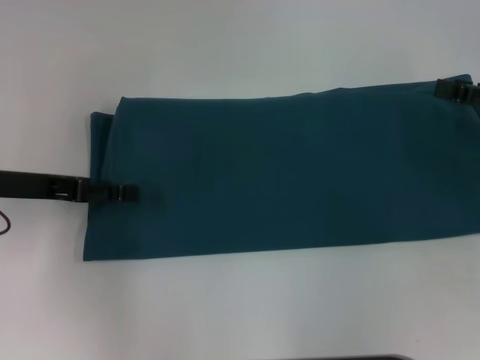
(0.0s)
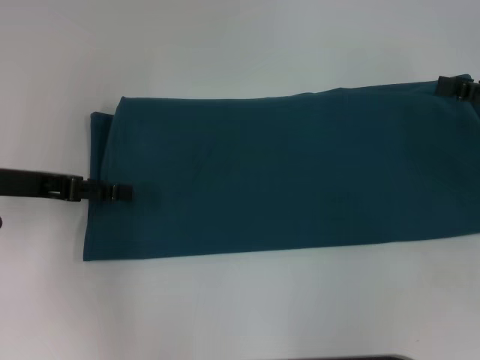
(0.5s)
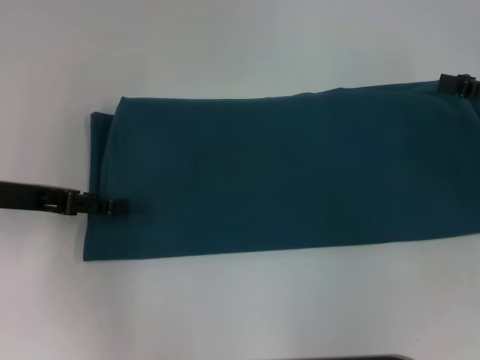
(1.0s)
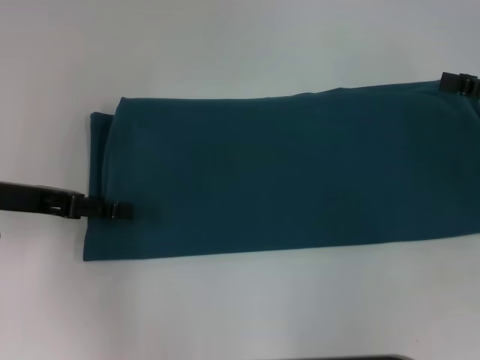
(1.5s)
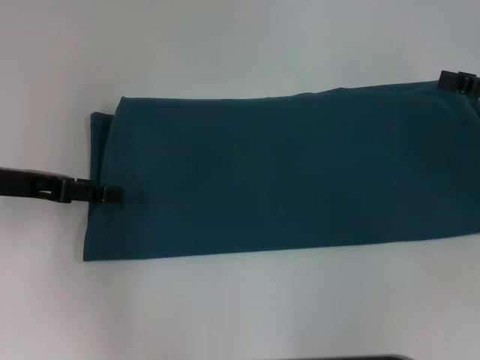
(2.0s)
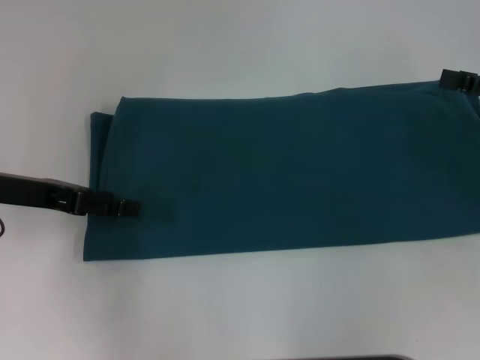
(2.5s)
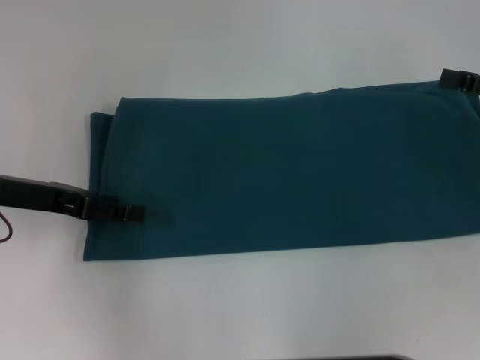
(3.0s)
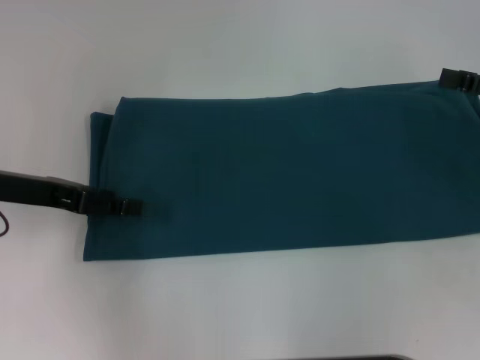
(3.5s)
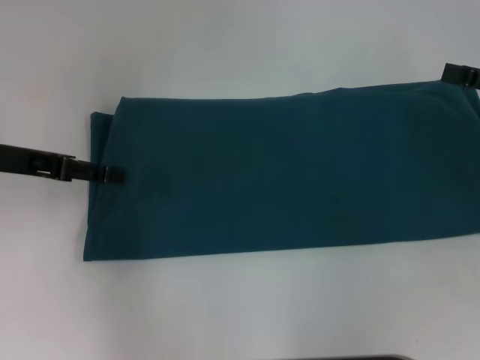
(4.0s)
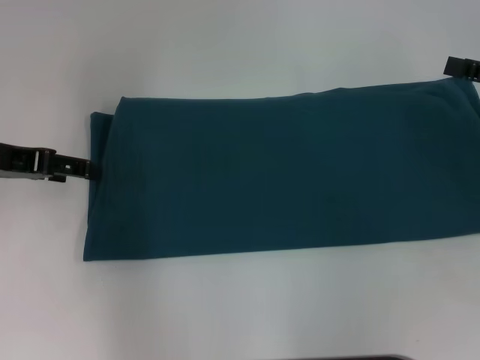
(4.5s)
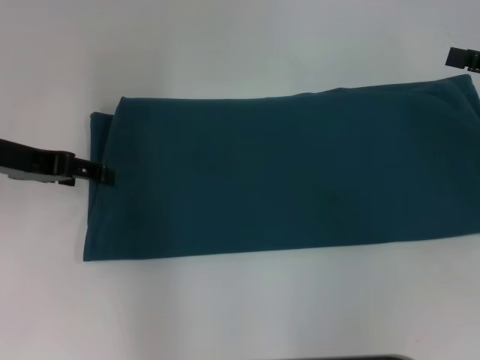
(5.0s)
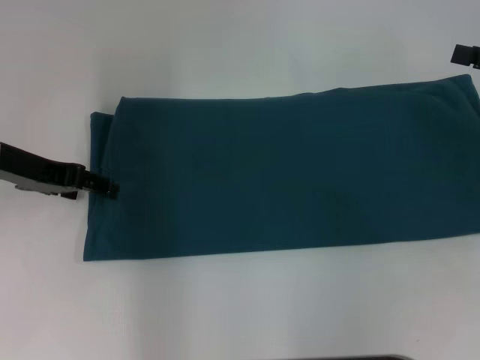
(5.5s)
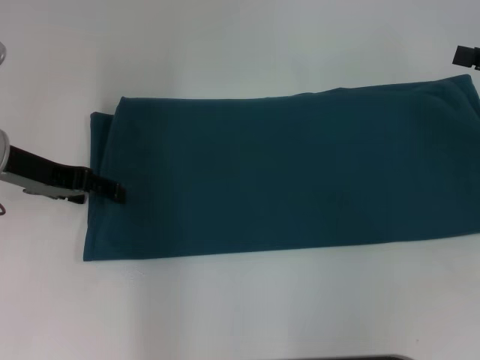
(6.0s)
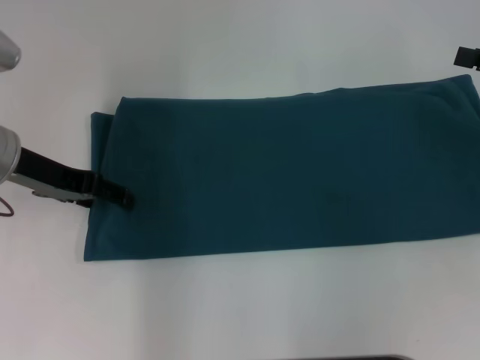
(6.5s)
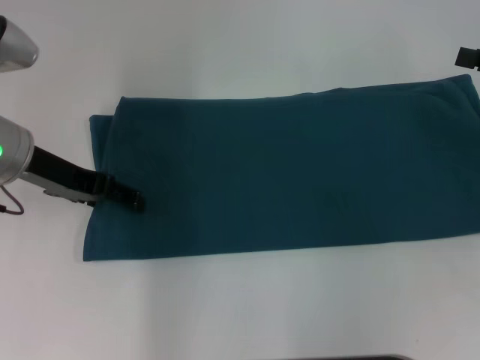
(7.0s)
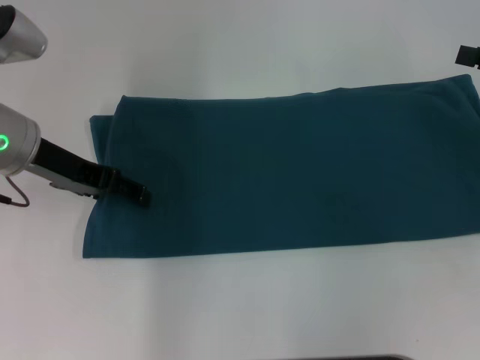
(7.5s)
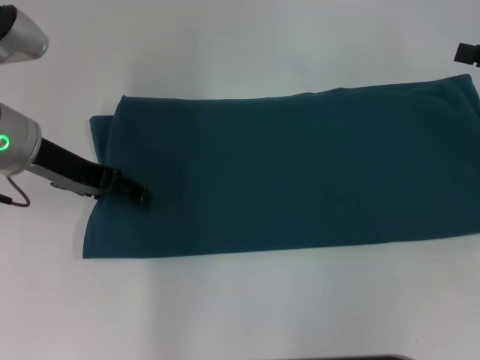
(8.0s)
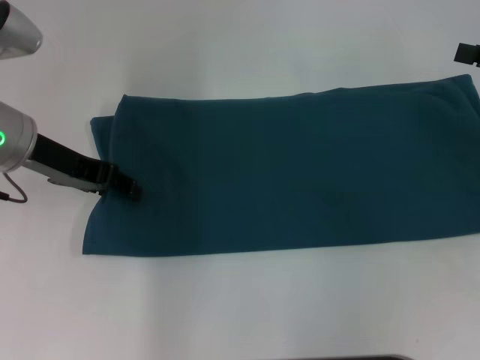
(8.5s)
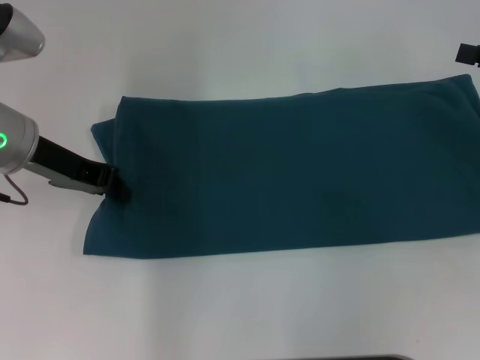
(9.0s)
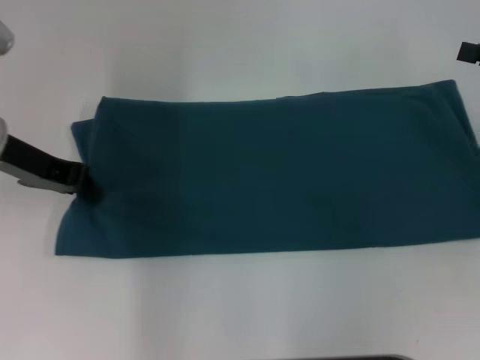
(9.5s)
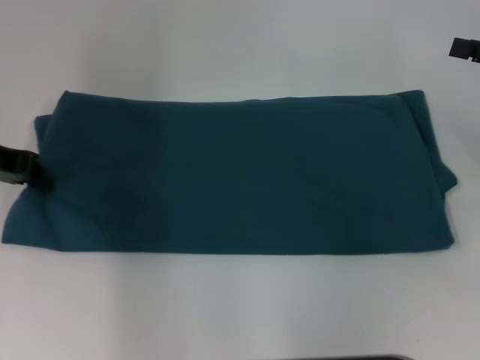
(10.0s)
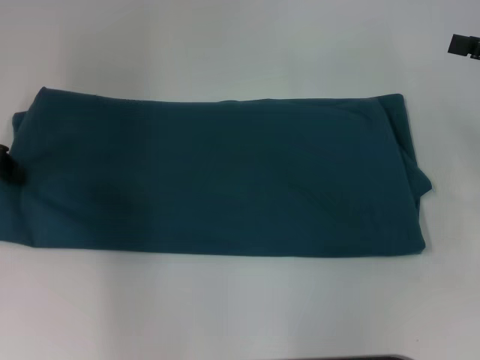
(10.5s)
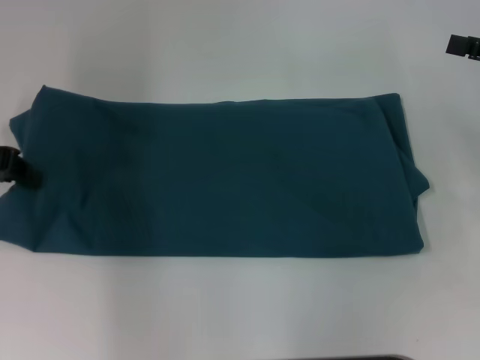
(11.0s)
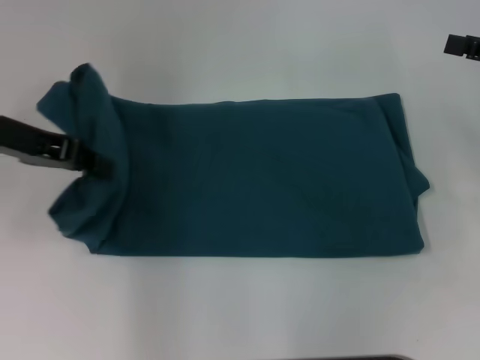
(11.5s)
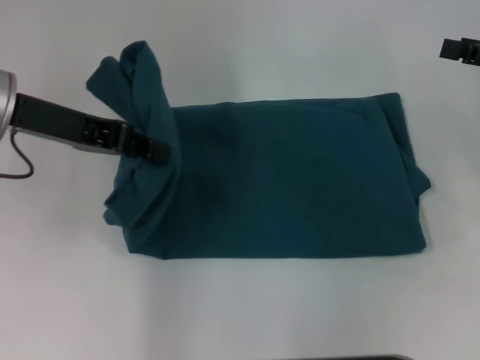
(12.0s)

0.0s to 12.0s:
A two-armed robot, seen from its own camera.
0.0s to 2.0s: The two grippers keep their place.
2.0s to 4.0s: The grippers stay close to where they were, moving slightly.
6.0s to 8.0s: The grippers make only small movements.
8.0s to 10.0s: The left gripper is displaced to the left by some 5 cm, and closes its fingers.
10.0s to 12.0s: The left gripper is displaced to the right by about 5 cm.

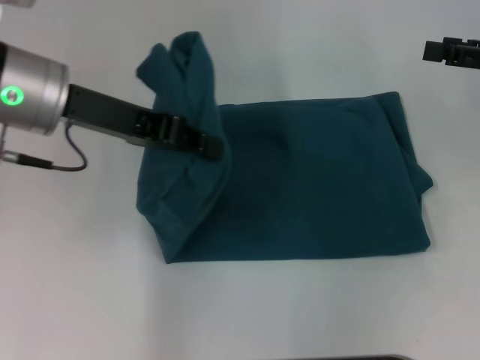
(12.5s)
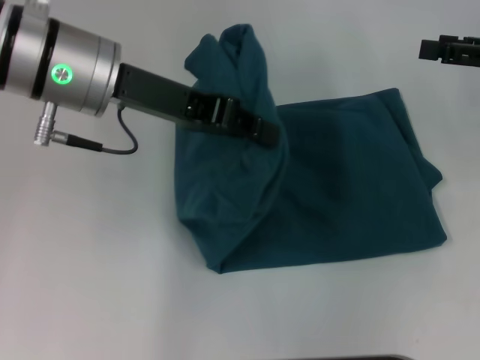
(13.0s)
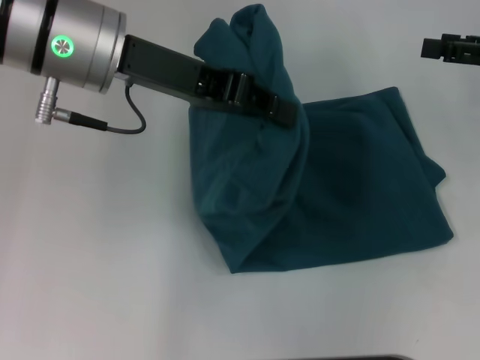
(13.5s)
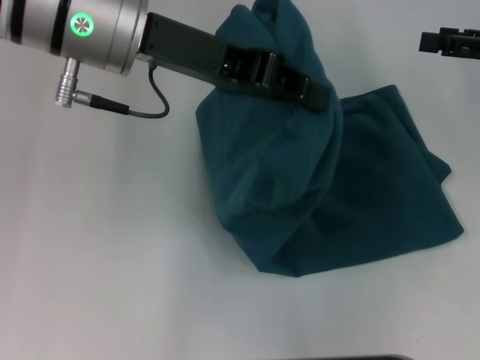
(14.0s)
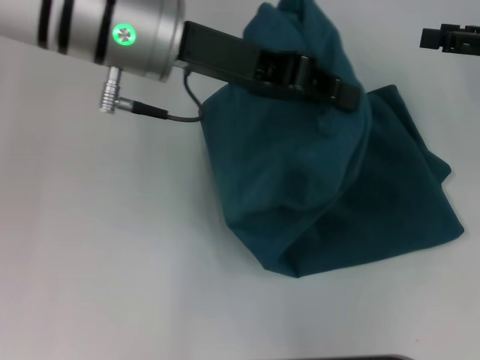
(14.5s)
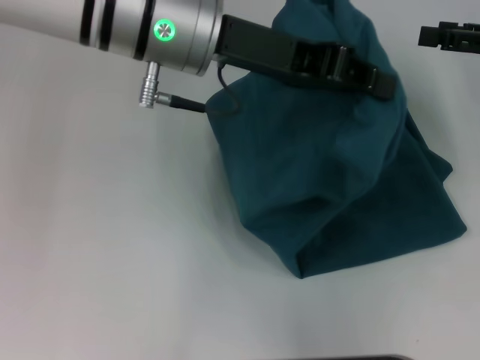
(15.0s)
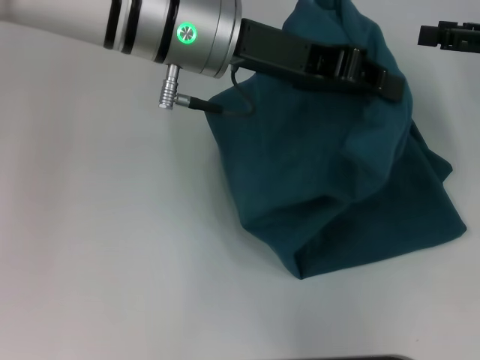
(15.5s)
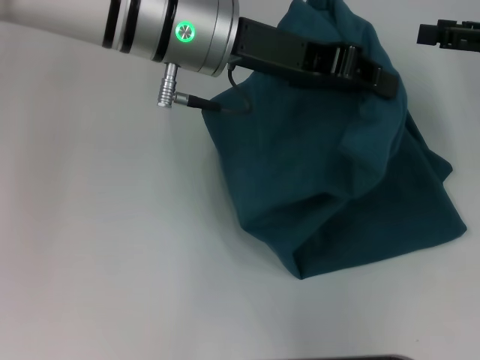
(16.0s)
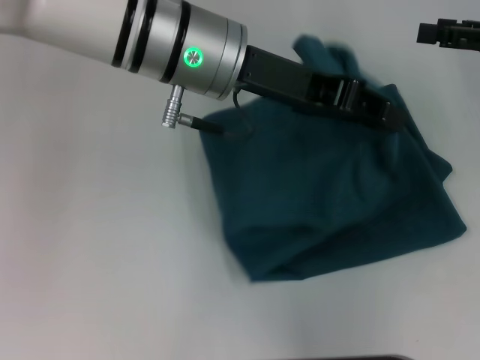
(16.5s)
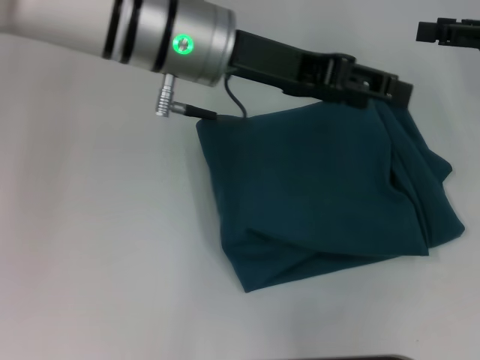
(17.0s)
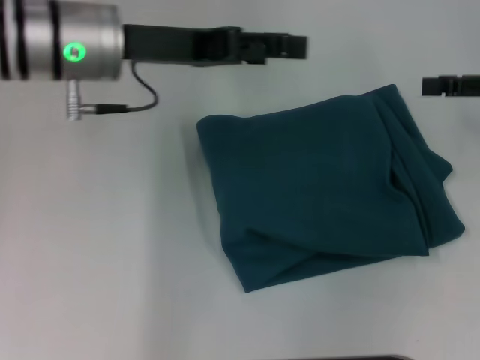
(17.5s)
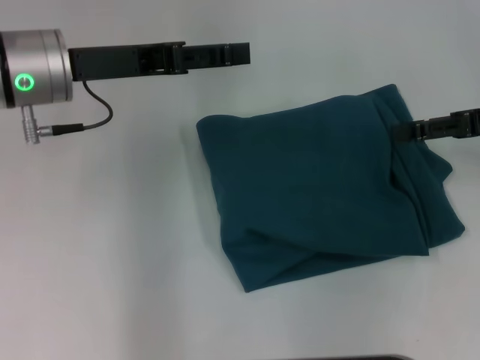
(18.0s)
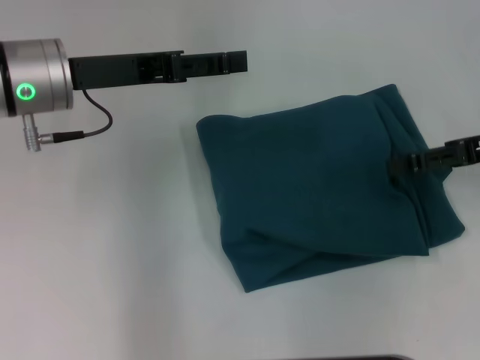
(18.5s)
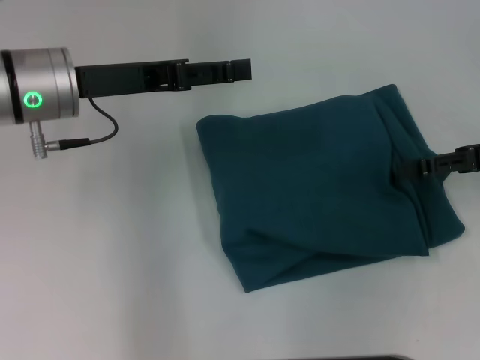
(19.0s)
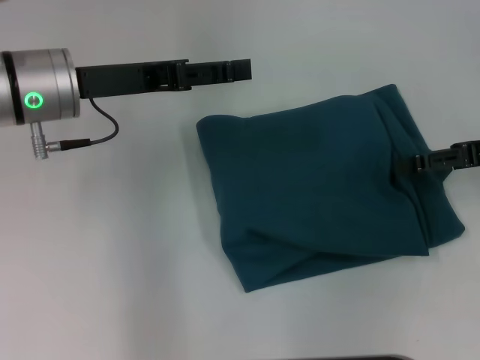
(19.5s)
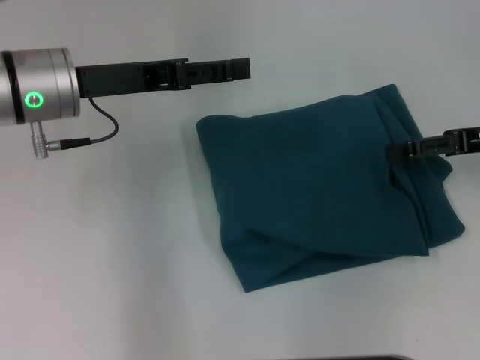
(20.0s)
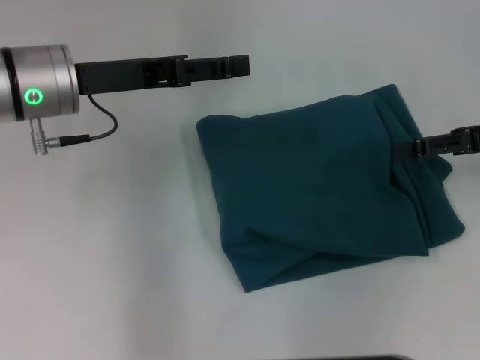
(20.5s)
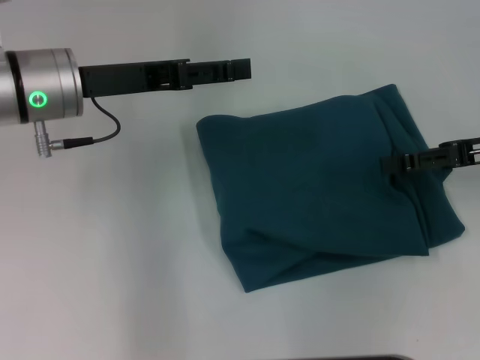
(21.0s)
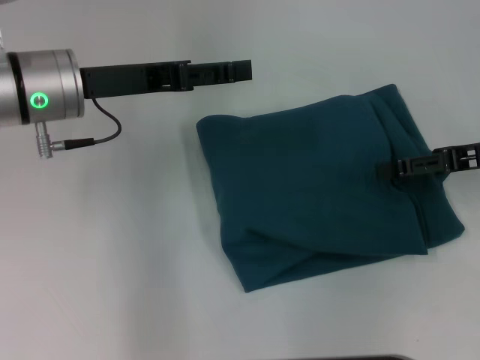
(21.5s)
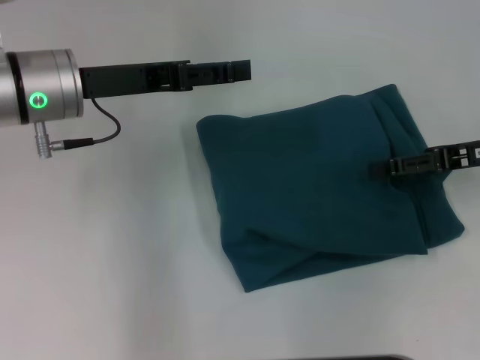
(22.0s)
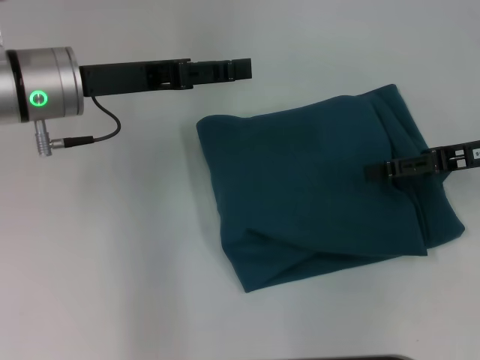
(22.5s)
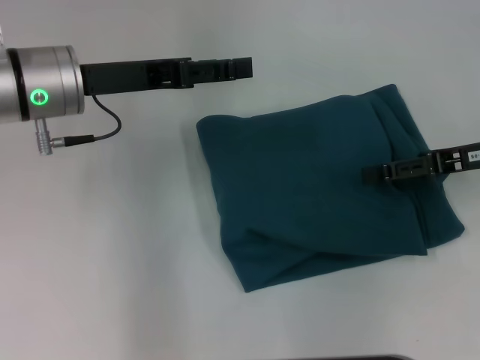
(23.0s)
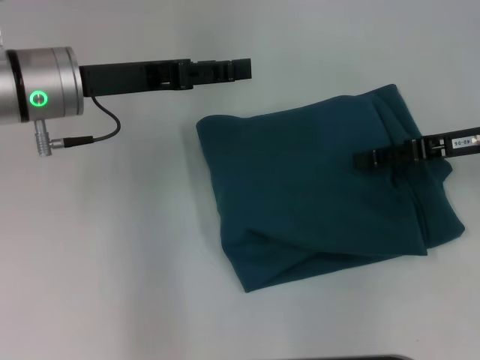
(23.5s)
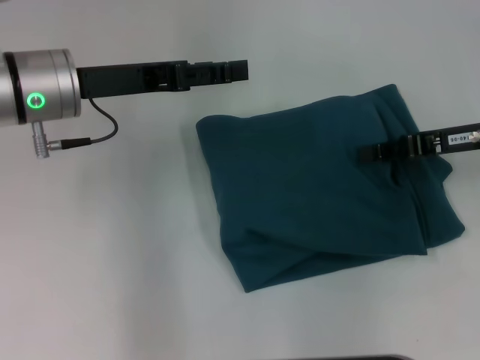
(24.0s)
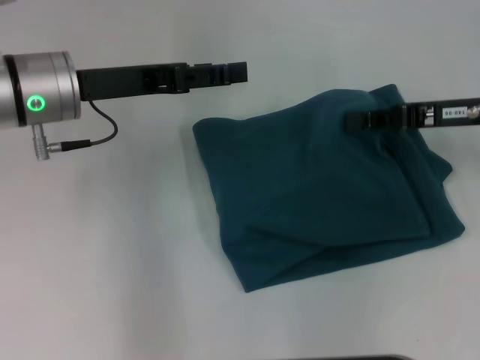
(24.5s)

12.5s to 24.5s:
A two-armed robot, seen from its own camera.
Step, 12.5s to 17.0s: Fold the clothes to the left.
12.5s to 14.5s: The left gripper travels to the right by roughly 10 cm.
14.5s to 16.5s: The grippers move only a little.
16.5s to 18.5s: The left gripper heads to the left, covering roughly 15 cm, and opens its fingers.
18.5s to 22.5s: The grippers move only a little.
22.5s to 24.5s: The right gripper closes.

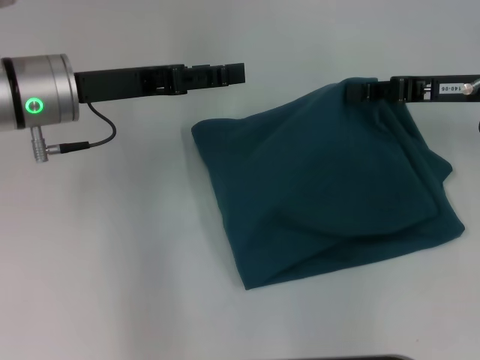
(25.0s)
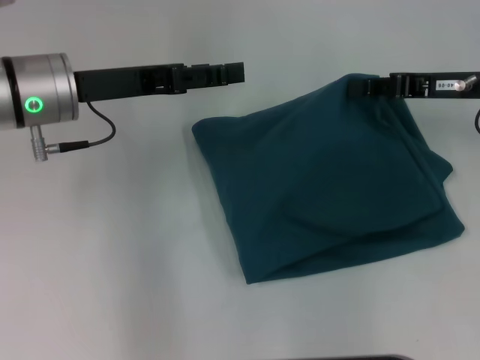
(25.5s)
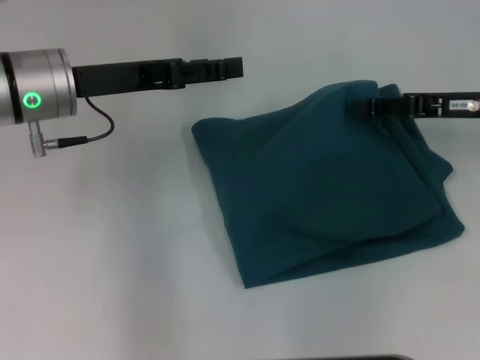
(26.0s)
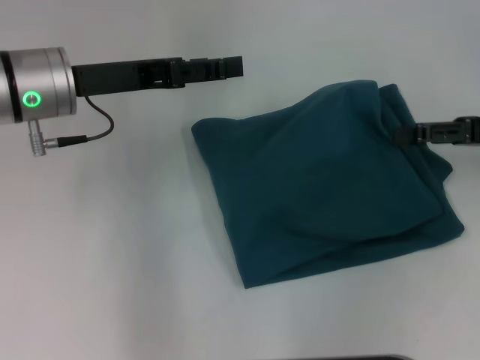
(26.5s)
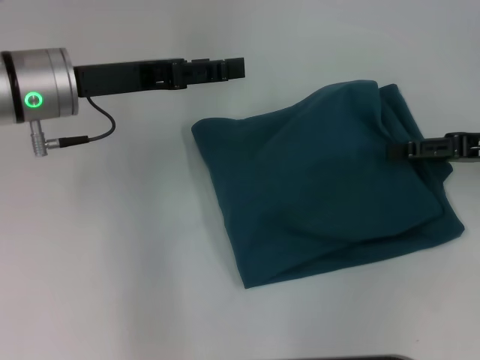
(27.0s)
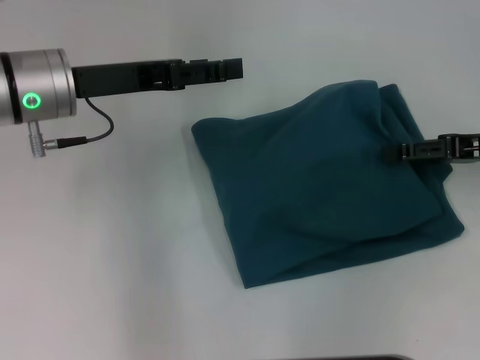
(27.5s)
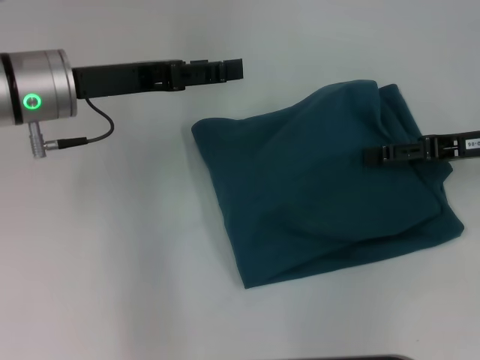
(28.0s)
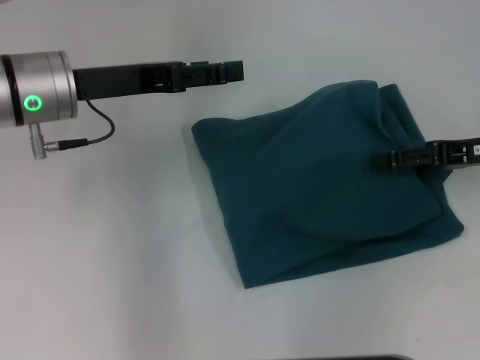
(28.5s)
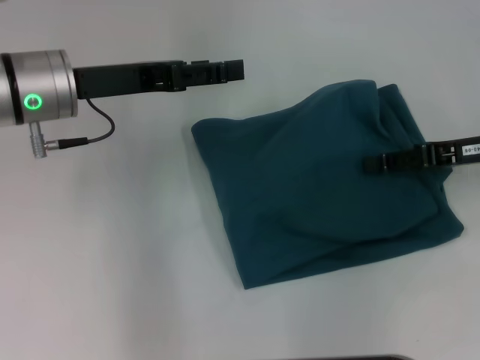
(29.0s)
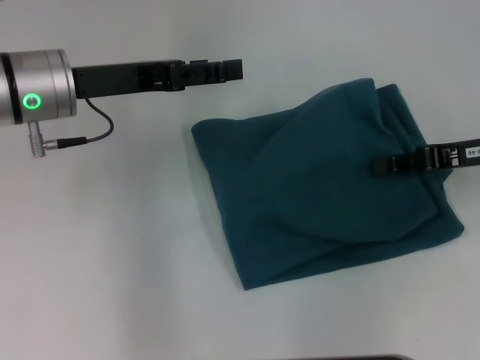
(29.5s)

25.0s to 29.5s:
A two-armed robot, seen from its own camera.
25.0s to 27.0s: The right gripper heads to the right, covering about 5 cm, and opens up.
27.0s to 29.5s: The right gripper closes its fingers.
